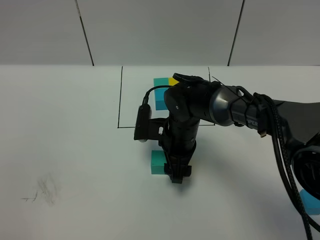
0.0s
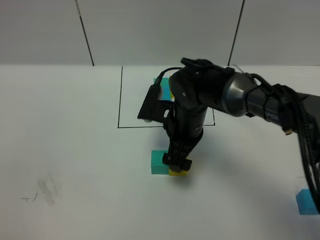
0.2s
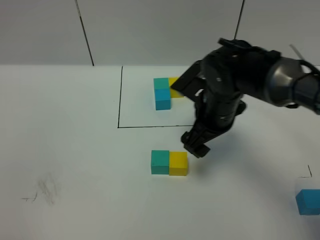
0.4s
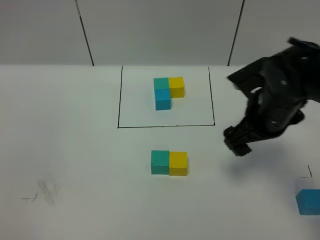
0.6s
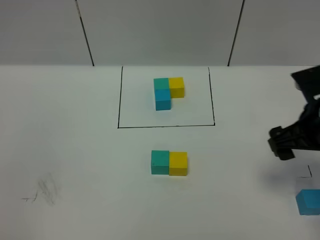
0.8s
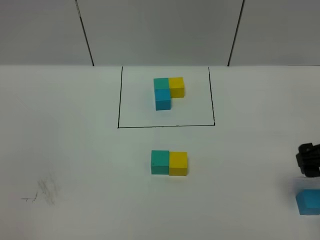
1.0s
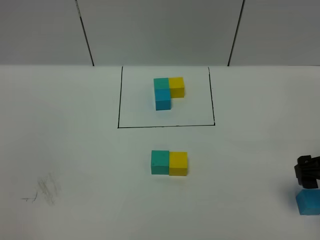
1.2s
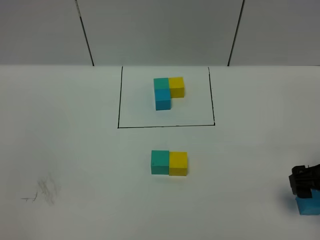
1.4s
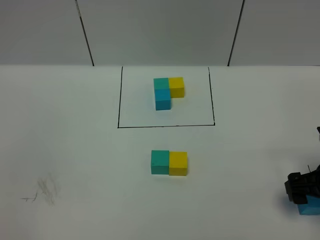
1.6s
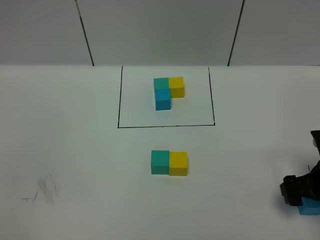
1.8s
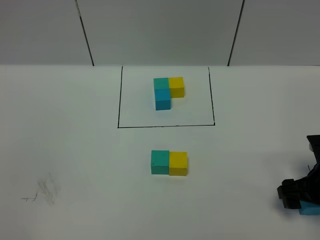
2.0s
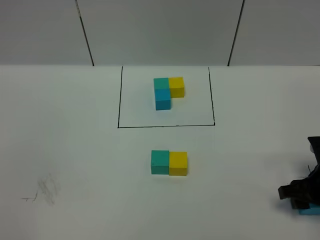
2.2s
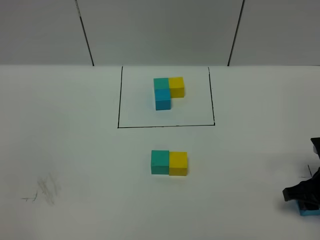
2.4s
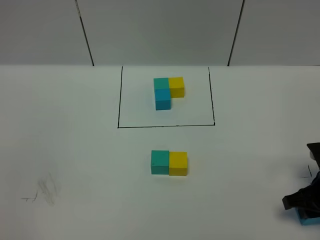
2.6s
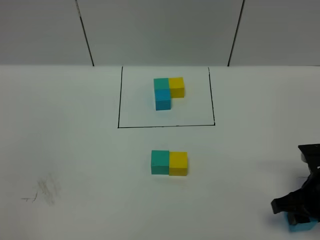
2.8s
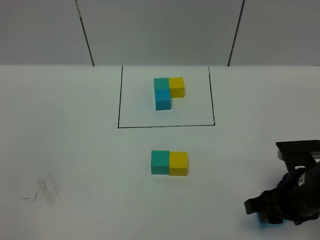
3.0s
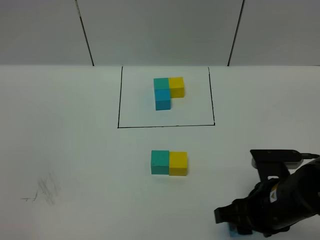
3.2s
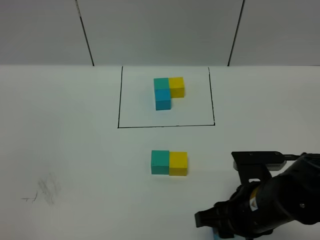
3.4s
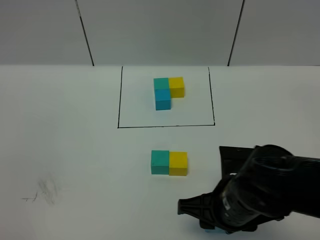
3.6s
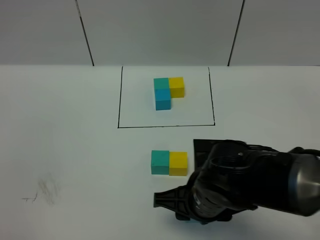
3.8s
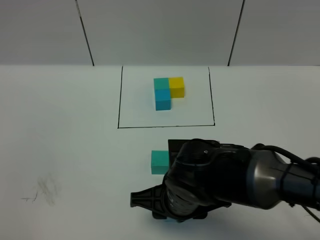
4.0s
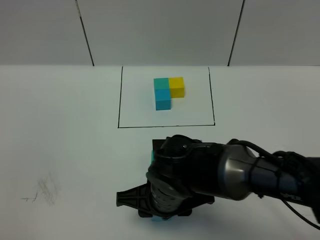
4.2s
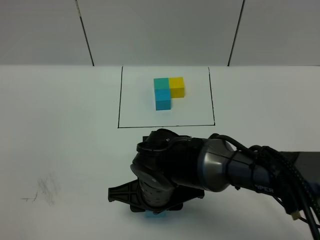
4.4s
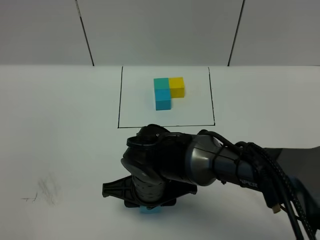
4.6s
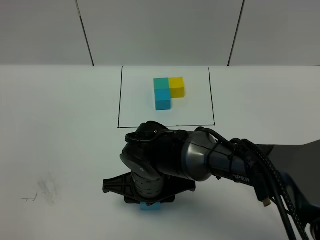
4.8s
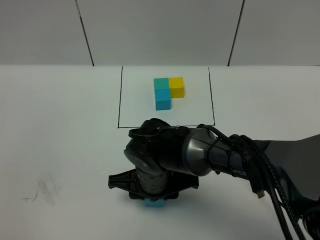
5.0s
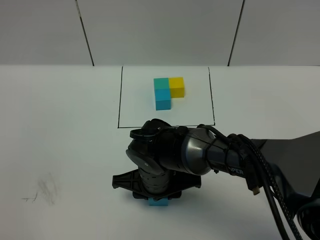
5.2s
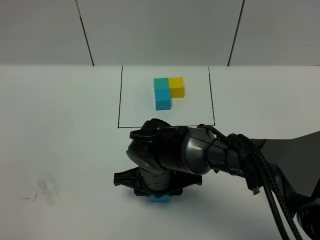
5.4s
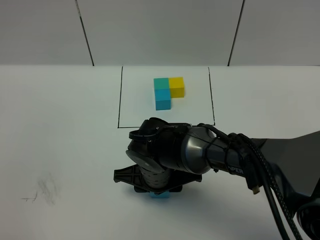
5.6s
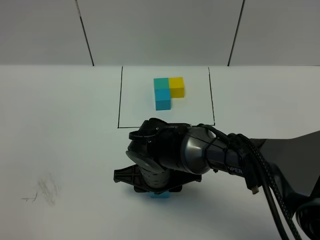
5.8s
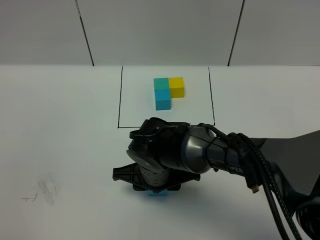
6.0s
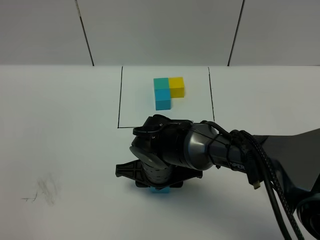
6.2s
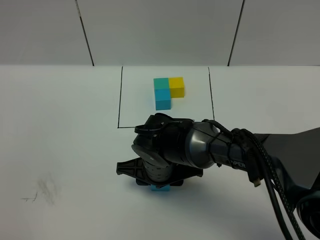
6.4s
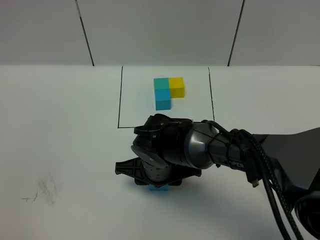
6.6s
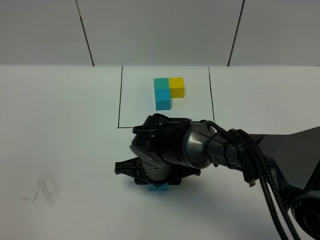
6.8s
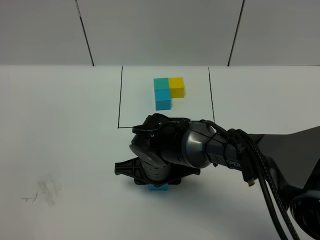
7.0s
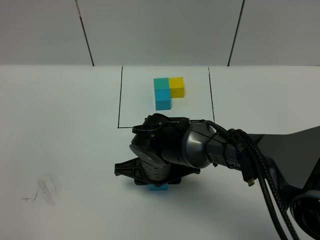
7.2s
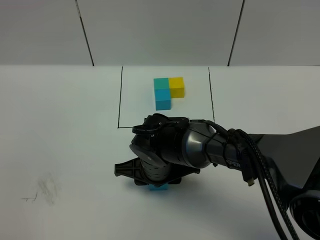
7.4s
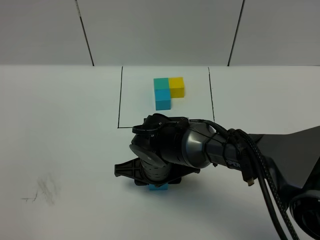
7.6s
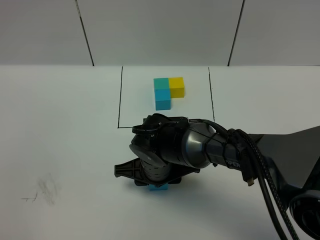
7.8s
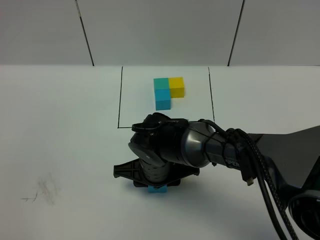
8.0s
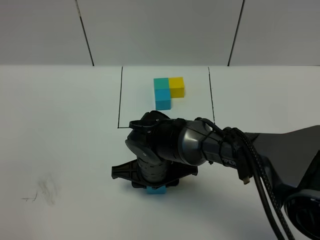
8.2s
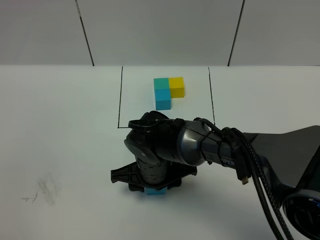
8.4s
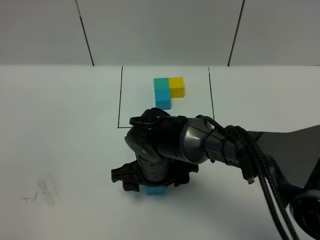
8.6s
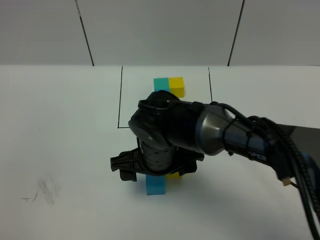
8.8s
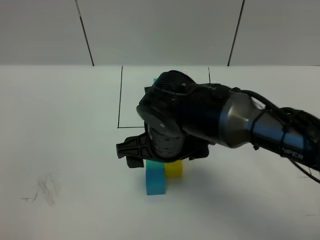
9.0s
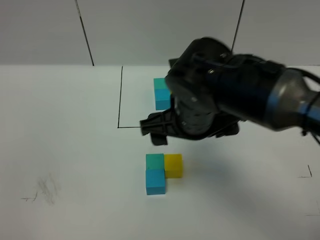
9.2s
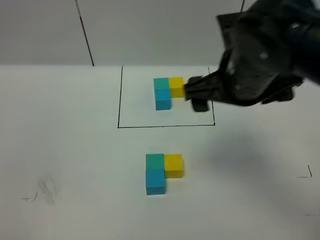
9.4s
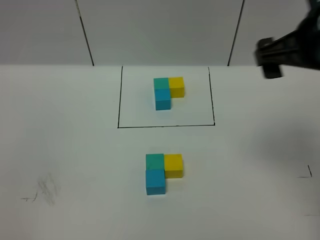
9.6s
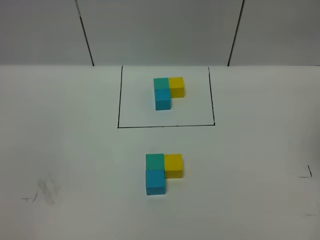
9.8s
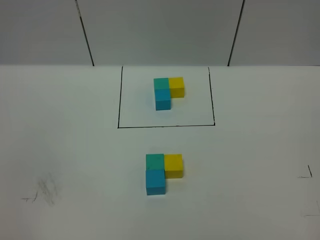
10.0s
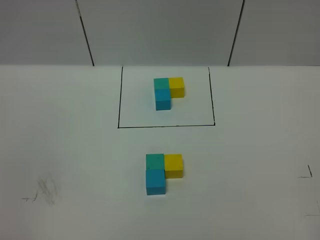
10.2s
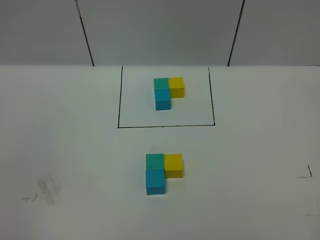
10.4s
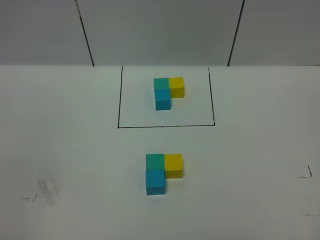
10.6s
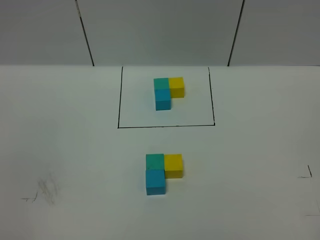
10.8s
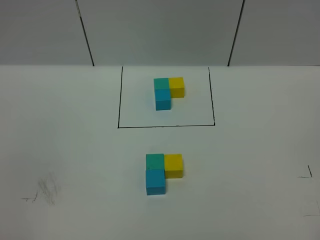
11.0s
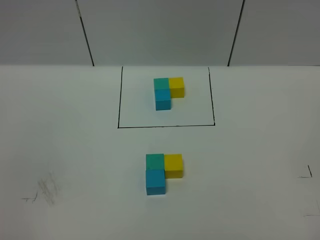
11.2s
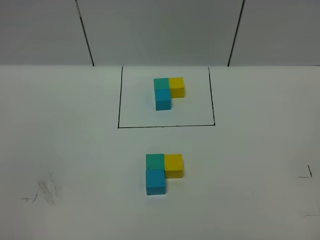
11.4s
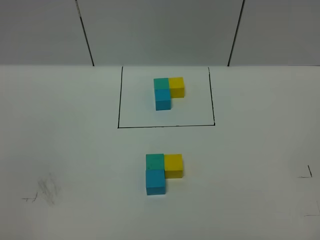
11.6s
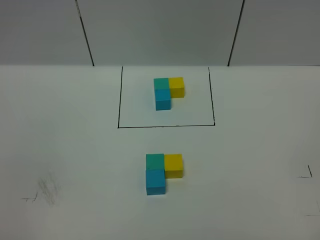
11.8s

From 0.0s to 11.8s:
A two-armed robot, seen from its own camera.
Task of the whole recording: According to the building block template in front, assemble the scattered blocks together.
Step, from 1.0s to 9.4s: Put the blue cube on the behind of the green cube.
From 0.0s to 1.4s: The right gripper is displaced to the right and backward by about 30 cm.
From 1.4s to 3.0s: The right gripper goes approximately 10 cm to the left, and closes its fingers.
From 3.0s to 4.4s: The right gripper moves to the left, roughly 20 cm.
From 4.4s to 6.0s: The right gripper changes place by roughly 5 cm.
From 6.0s to 7.4s: Both grippers stay put.
From 7.4s to 8.8s: The right gripper travels upward by some 5 cm, and opens.
From 8.8s to 10.4s: The right gripper goes roughly 50 cm to the right, backward and upward.
